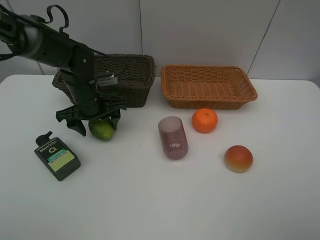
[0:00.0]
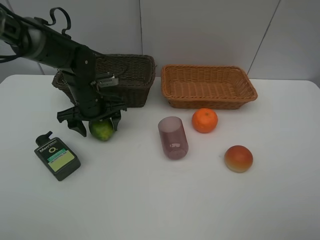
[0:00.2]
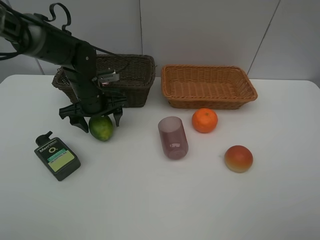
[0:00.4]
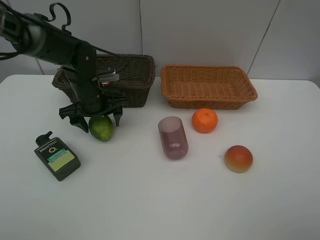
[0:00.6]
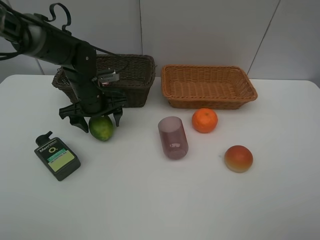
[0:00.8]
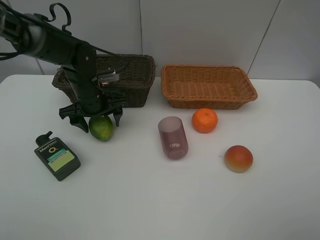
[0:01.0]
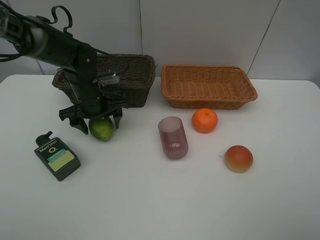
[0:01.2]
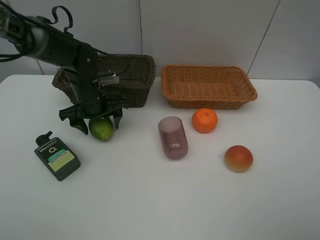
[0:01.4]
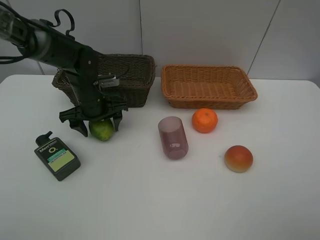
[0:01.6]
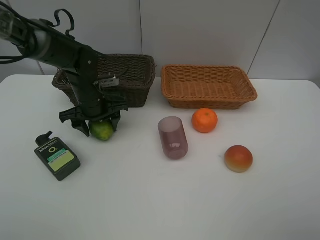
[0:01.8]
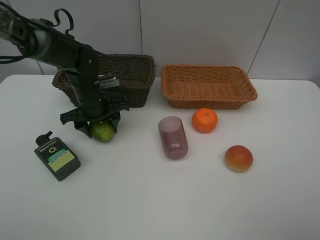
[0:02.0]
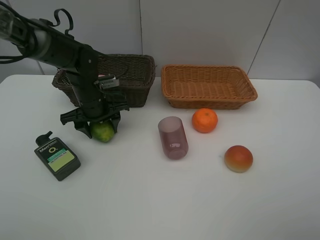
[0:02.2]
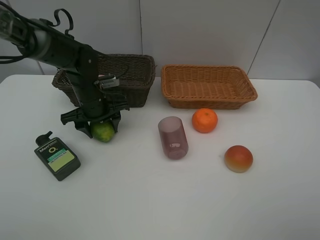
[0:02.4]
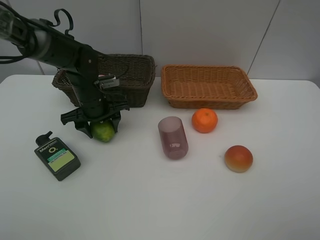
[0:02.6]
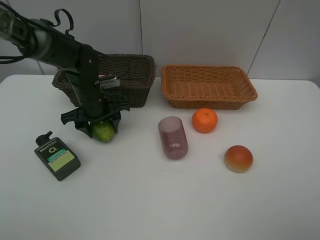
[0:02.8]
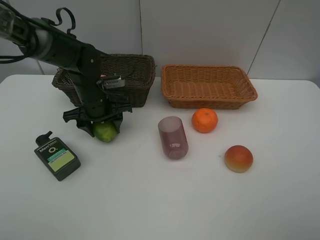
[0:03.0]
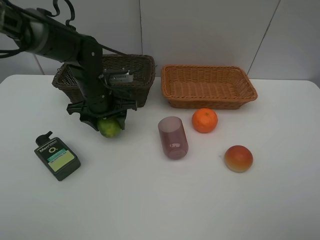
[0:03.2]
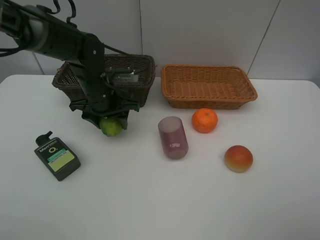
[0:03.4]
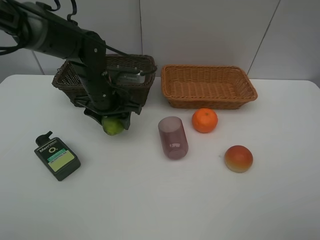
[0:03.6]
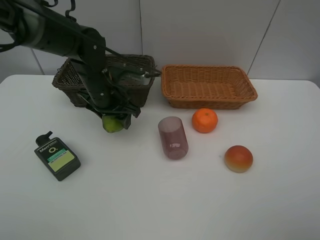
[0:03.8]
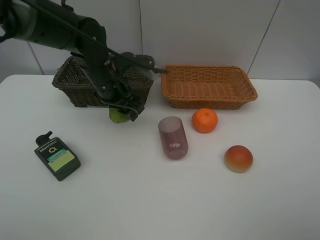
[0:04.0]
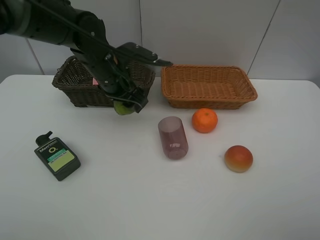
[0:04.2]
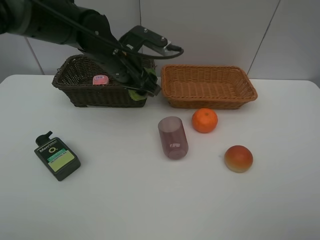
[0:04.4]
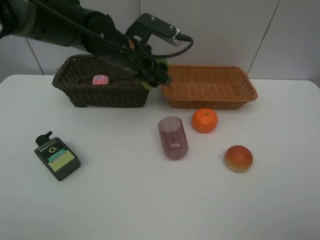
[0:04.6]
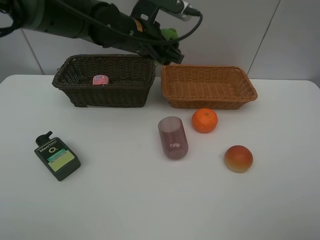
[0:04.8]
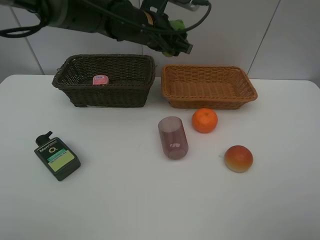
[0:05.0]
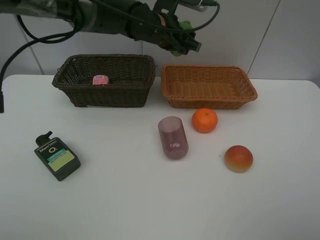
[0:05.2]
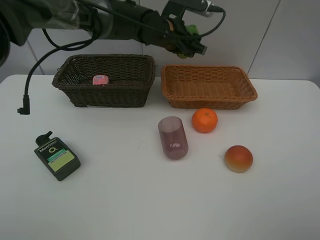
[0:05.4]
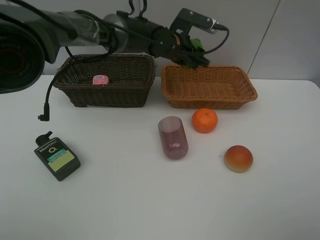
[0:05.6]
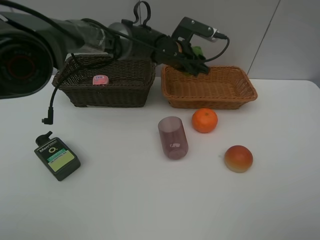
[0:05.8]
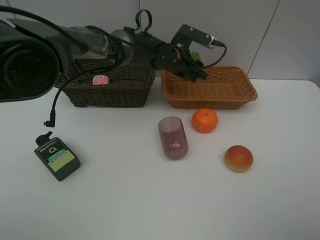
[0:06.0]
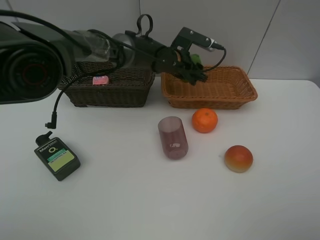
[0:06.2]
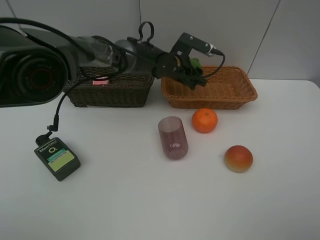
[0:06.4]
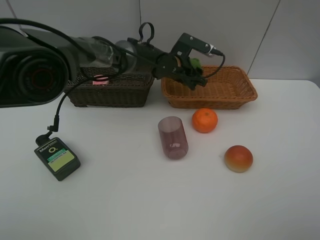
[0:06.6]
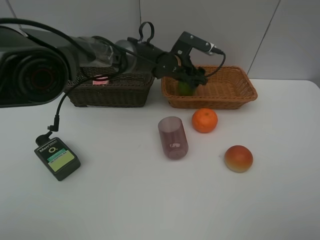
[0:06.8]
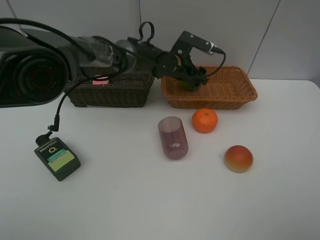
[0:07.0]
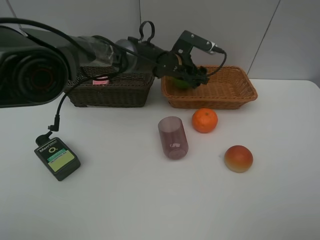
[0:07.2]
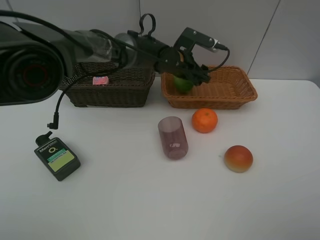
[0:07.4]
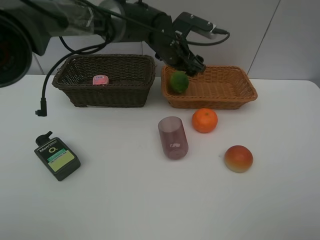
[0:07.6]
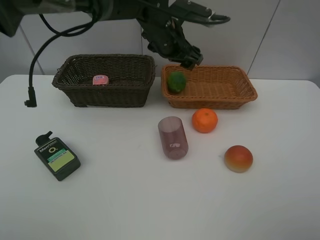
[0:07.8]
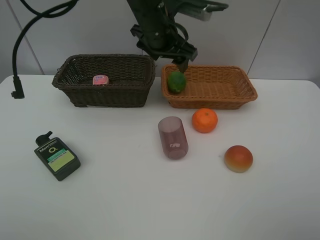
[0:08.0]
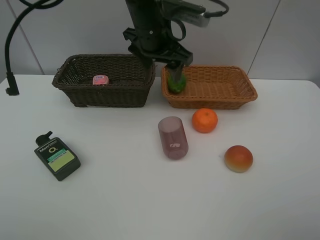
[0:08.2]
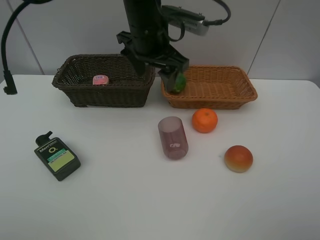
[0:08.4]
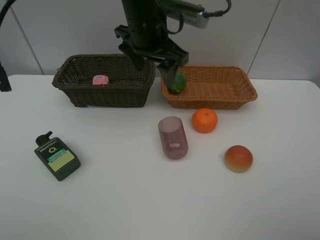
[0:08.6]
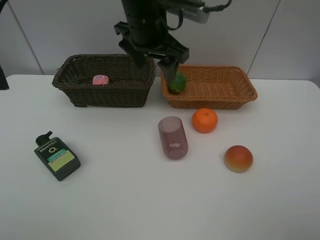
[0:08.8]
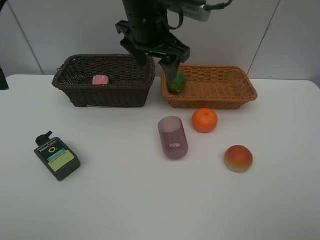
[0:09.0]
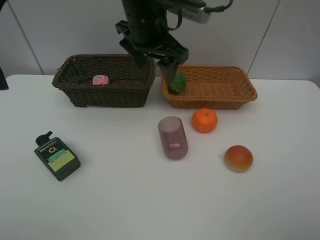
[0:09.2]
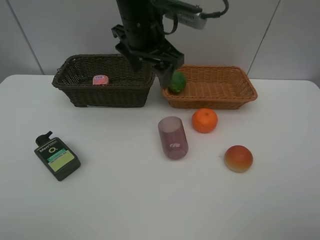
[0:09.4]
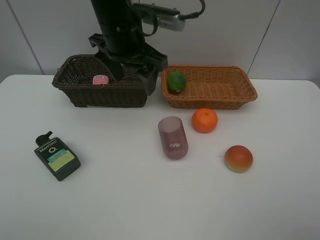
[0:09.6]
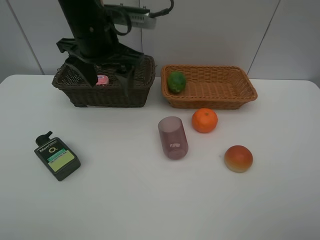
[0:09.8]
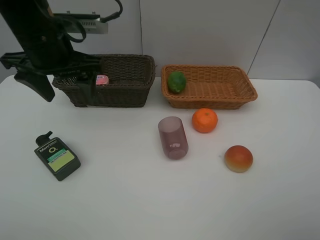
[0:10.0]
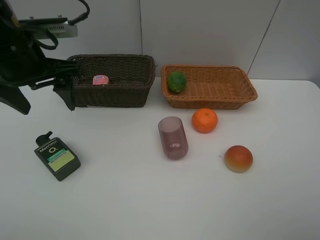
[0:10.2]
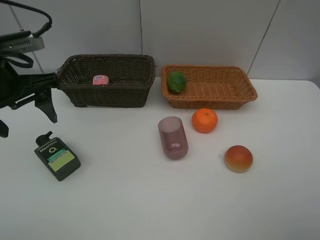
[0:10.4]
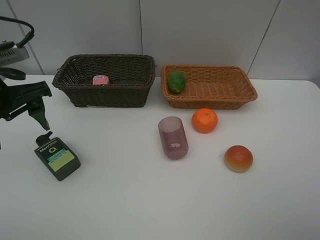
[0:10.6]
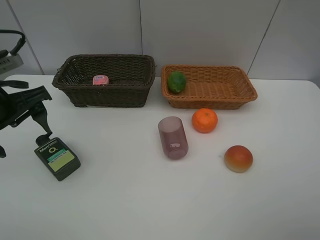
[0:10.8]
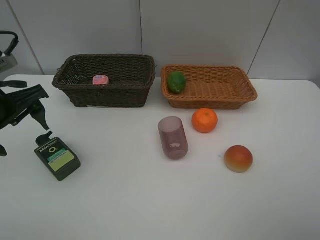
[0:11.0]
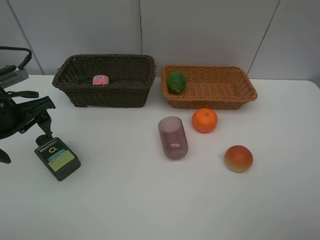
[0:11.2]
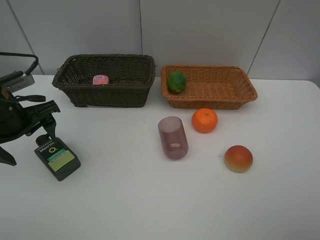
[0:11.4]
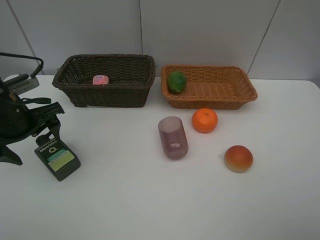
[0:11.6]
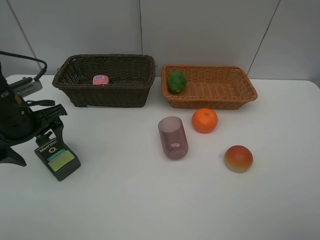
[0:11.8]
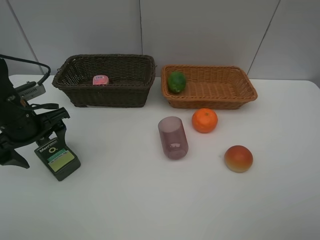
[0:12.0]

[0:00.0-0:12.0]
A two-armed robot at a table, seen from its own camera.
Task of the whole recording: place multiple objects separately in different baskets.
0:00.0 to 0:01.6: Neither gripper changes place.
0:01.6 to 0:03.0: The grippers move only a little.
0:03.0 to 0:04.4: The left gripper shifts approximately 10 cm upward and to the right.
0:04.4 to 0:06.0: The left gripper goes approximately 15 cm to the right, forward and downward.
0:06.0 to 0:07.6: The left gripper travels upward by roughly 5 cm.
0:07.6 to 0:09.0: The left gripper is displaced upward and backward by some 10 cm.
0:09.0 to 0:10.4: The left gripper travels to the left and backward by some 25 cm.
0:10.4 to 0:12.0: The left gripper is displaced downward by about 10 cm.

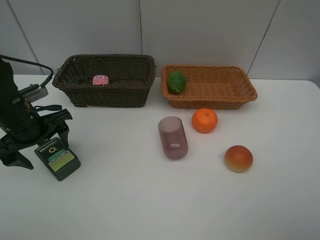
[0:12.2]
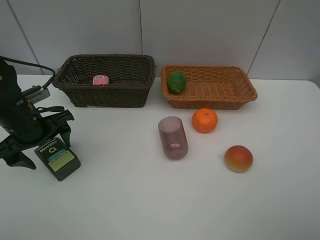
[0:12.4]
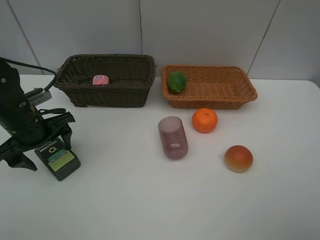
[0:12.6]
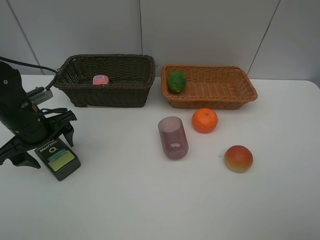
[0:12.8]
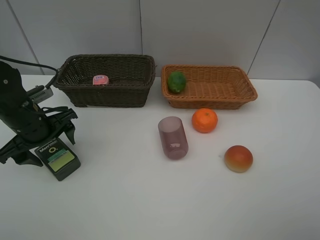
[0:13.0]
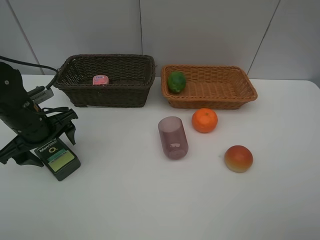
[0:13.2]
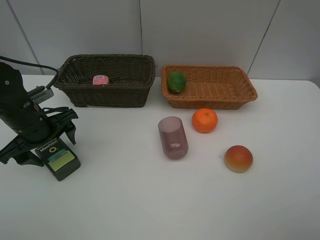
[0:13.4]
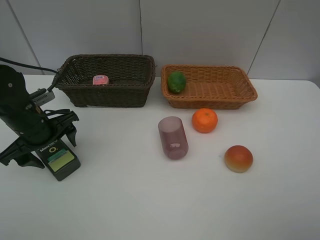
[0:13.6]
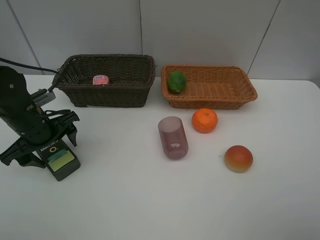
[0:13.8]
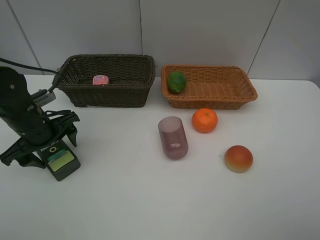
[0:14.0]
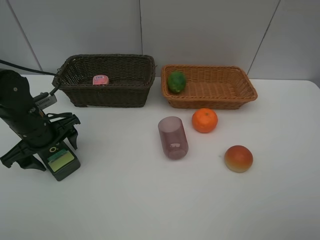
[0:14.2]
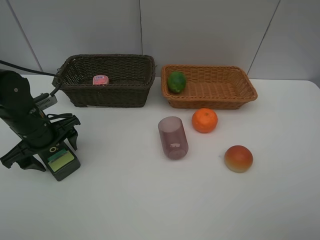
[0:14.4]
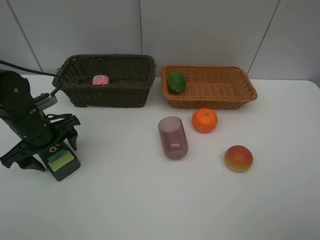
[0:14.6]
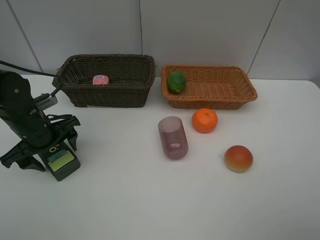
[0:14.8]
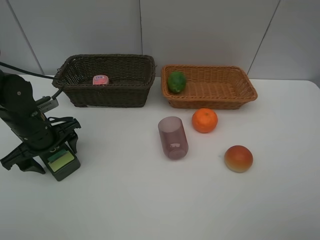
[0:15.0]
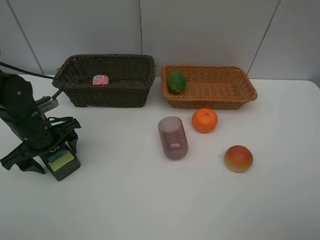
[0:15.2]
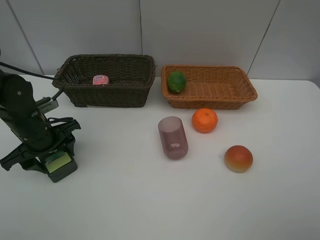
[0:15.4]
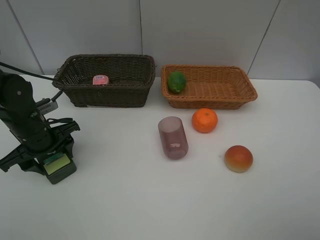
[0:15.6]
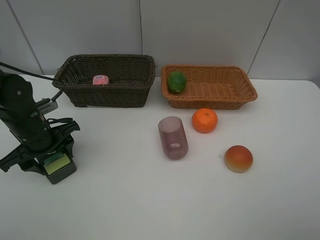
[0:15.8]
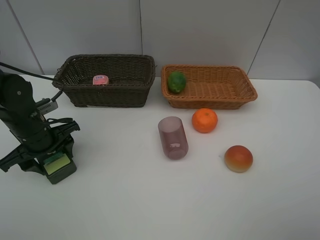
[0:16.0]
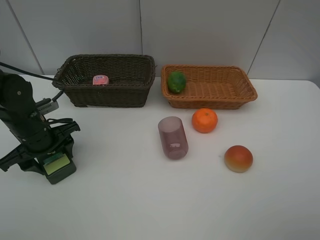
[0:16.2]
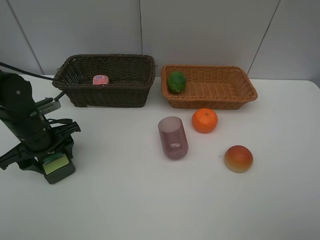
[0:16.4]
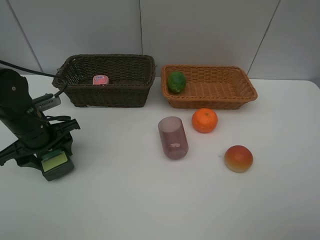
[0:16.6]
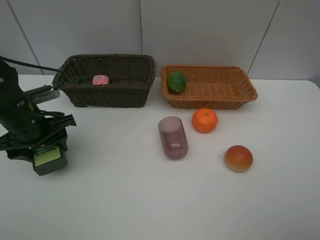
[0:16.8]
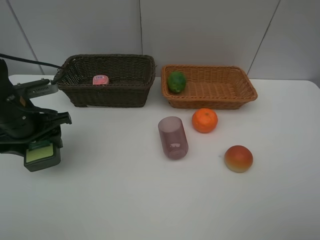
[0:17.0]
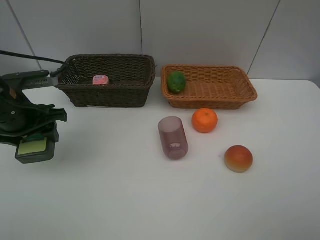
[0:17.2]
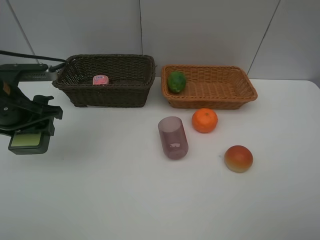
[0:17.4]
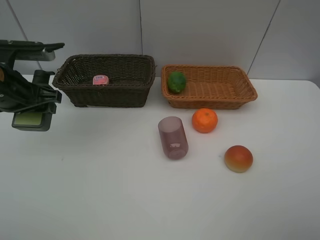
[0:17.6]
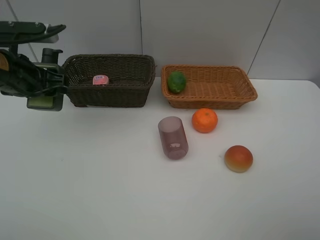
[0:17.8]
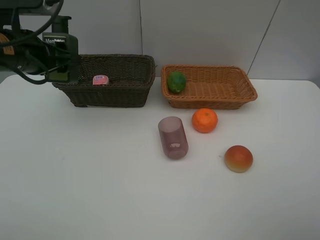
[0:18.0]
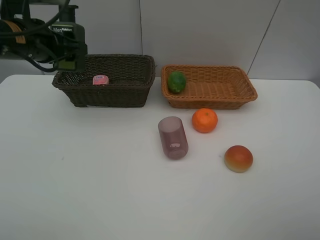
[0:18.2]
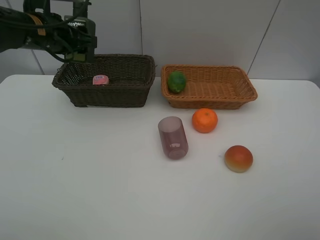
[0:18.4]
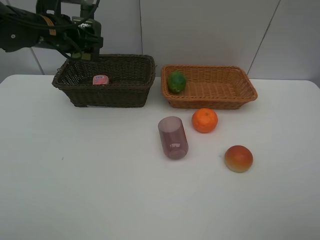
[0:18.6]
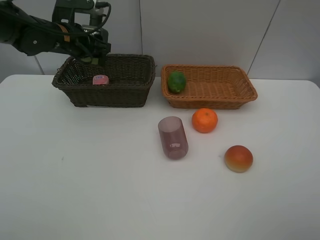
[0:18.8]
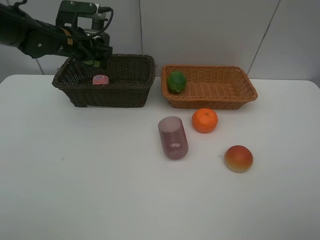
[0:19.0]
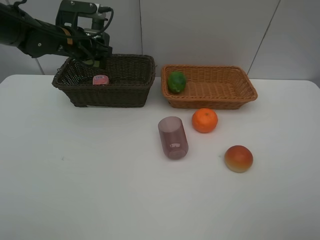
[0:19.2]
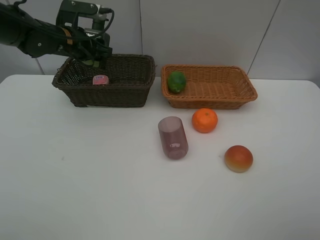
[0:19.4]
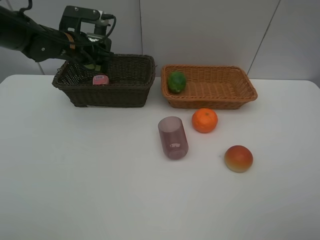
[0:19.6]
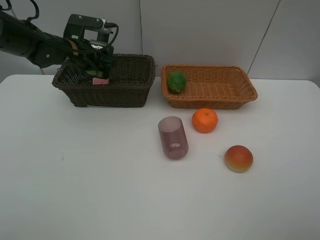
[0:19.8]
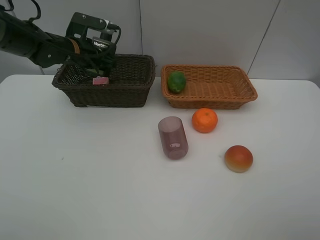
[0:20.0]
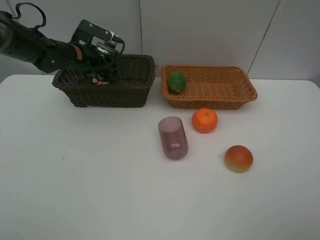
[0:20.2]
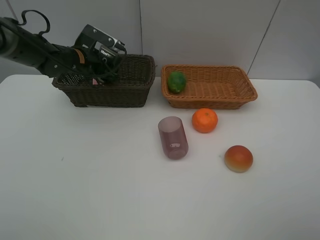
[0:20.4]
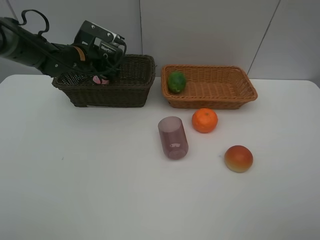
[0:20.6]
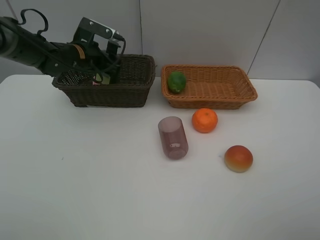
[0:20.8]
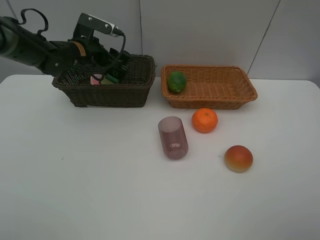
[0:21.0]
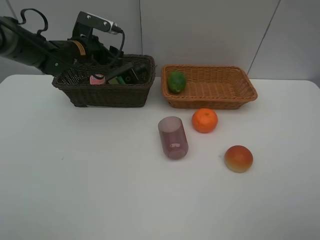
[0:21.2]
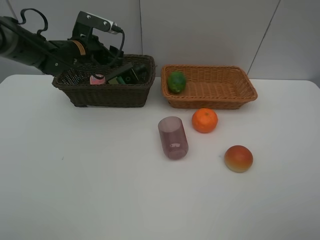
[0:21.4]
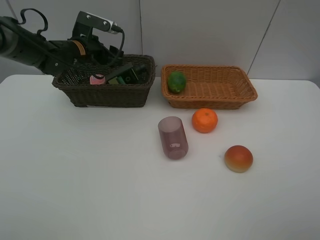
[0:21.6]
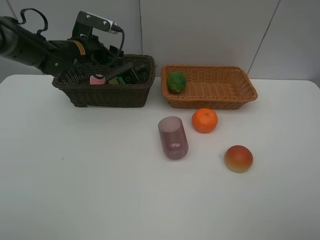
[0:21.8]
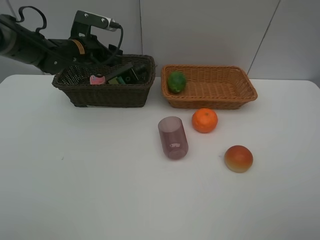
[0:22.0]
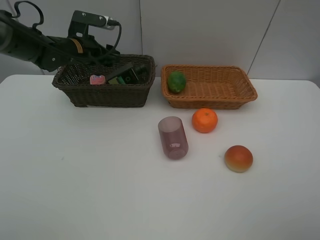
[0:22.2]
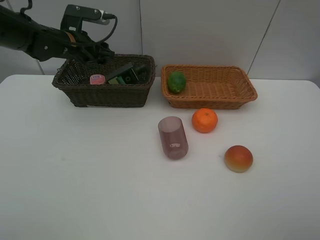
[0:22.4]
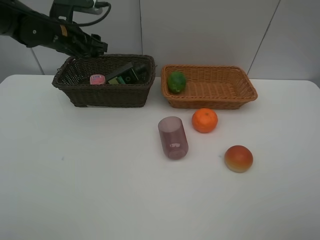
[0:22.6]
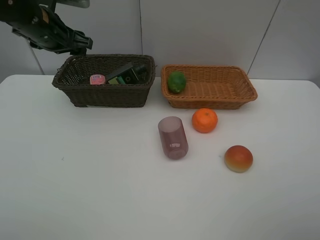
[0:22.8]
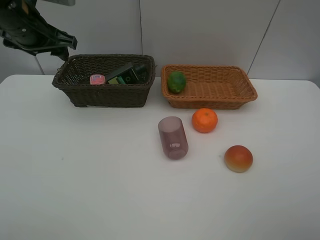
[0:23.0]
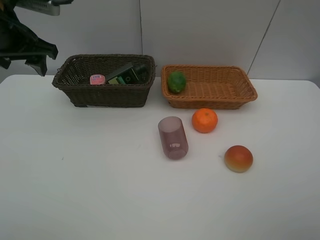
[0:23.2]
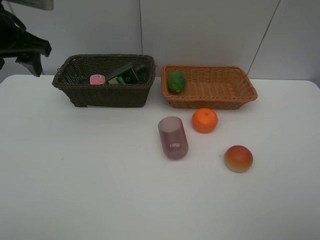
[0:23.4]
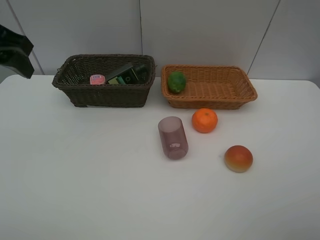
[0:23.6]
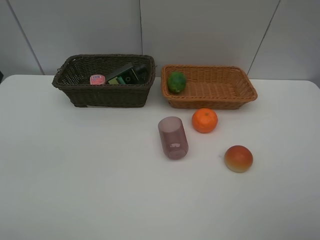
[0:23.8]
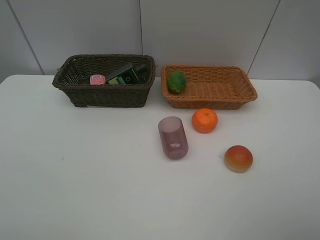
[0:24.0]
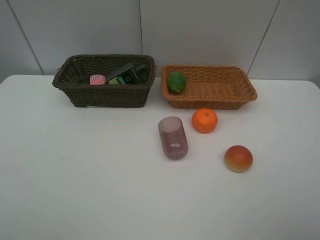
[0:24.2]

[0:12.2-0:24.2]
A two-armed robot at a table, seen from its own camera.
Task of the whole recording: place multiple objects separately in different baskets.
0:12.2 to 0:16.6: There are only small adjustments of the grippers.
0:16.6 to 0:18.2: The left gripper moves upward and forward, roughly 15 cm.
0:18.2 to 0:19.8: The left gripper is displaced forward and downward by roughly 15 cm.
0:19.8 to 0:21.2: The grippers move only a little.
0:21.2 to 0:22.6: The left gripper moves upward, approximately 5 cm.
0:22.6 to 0:24.2: The left gripper heads backward, covering approximately 35 cm.
